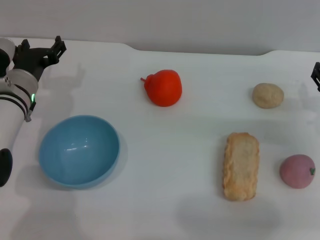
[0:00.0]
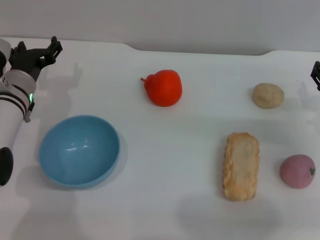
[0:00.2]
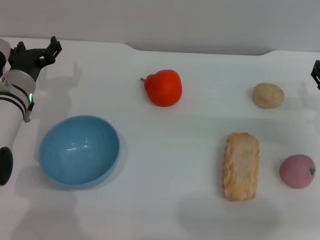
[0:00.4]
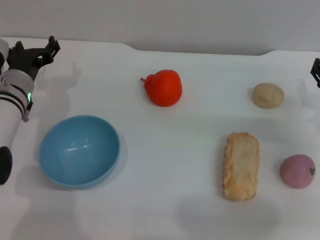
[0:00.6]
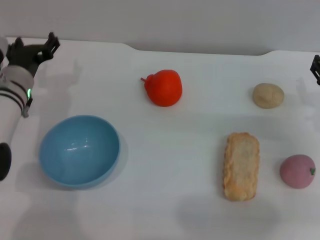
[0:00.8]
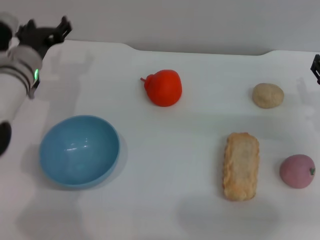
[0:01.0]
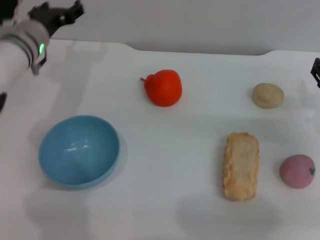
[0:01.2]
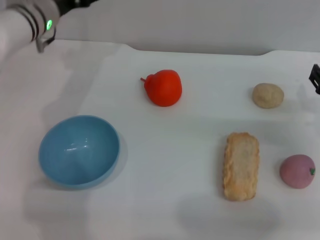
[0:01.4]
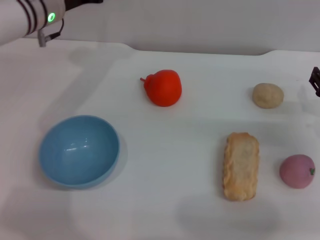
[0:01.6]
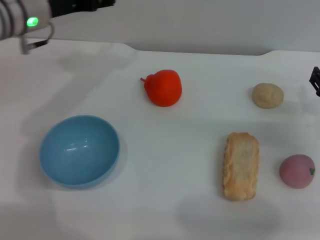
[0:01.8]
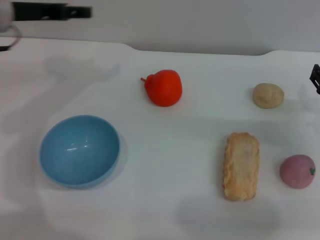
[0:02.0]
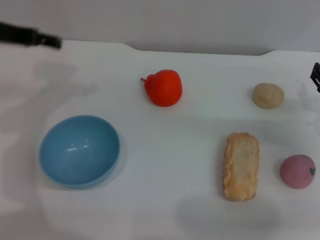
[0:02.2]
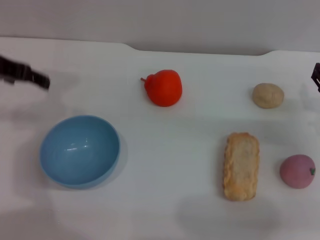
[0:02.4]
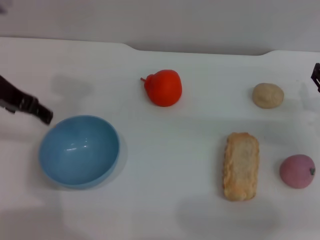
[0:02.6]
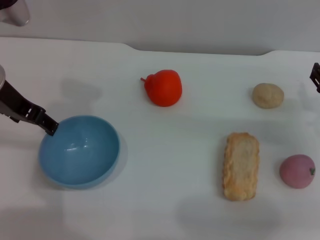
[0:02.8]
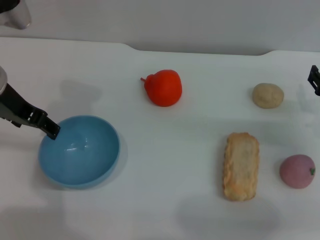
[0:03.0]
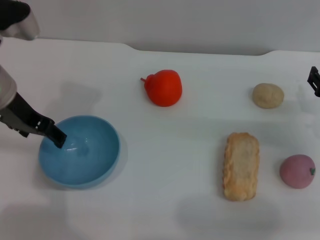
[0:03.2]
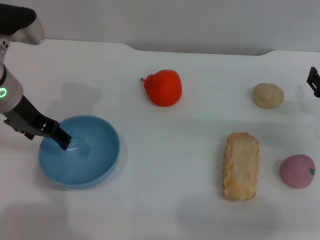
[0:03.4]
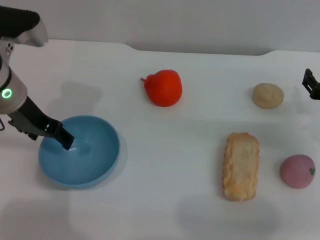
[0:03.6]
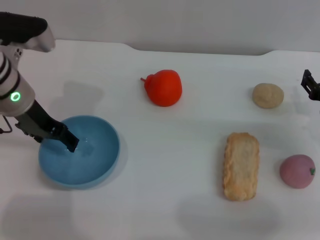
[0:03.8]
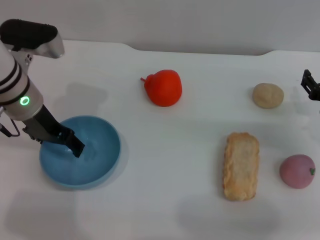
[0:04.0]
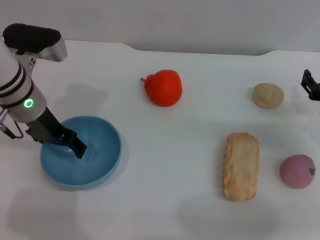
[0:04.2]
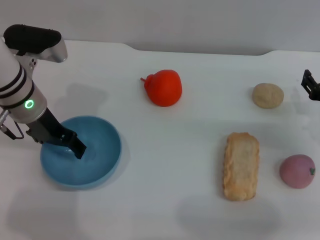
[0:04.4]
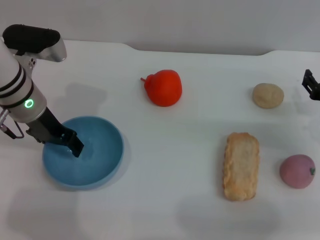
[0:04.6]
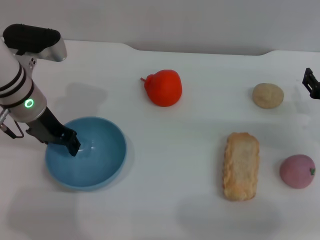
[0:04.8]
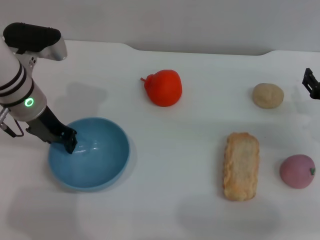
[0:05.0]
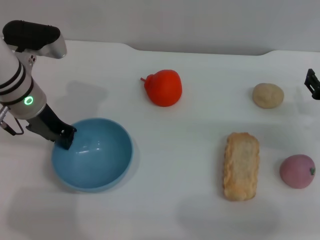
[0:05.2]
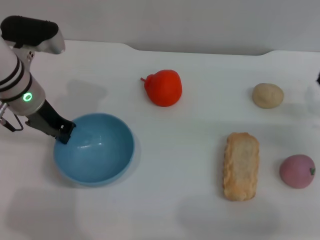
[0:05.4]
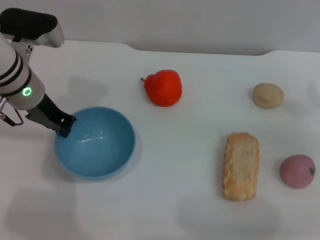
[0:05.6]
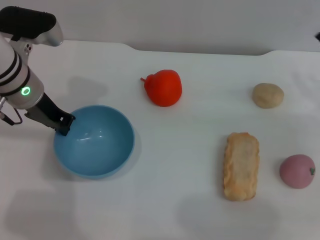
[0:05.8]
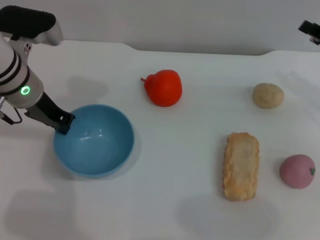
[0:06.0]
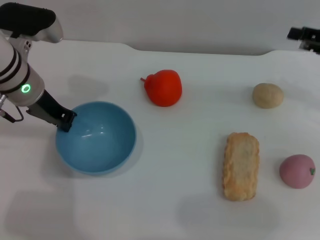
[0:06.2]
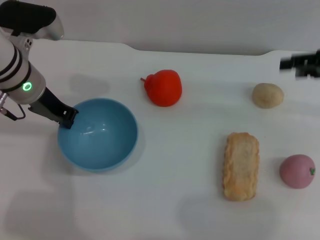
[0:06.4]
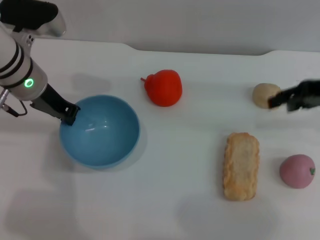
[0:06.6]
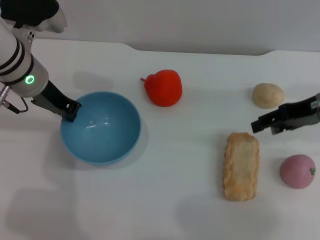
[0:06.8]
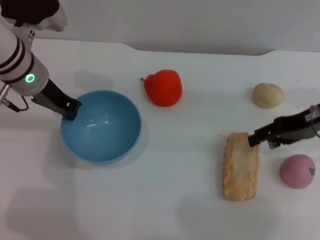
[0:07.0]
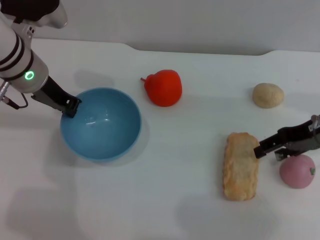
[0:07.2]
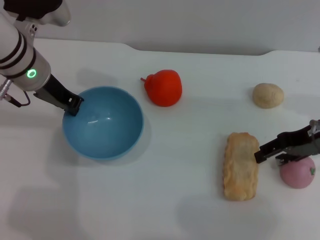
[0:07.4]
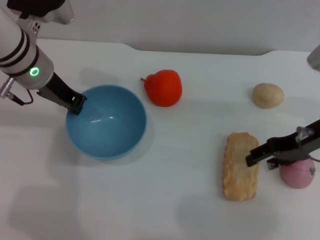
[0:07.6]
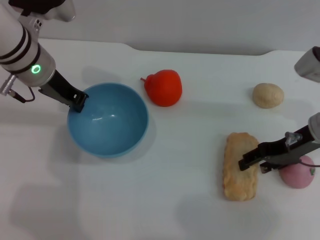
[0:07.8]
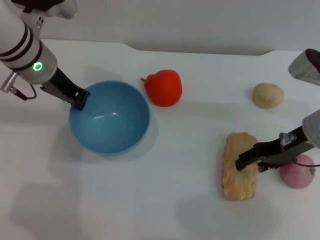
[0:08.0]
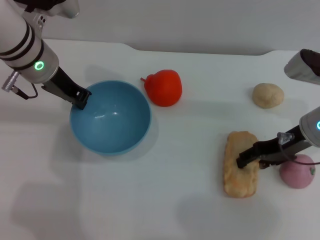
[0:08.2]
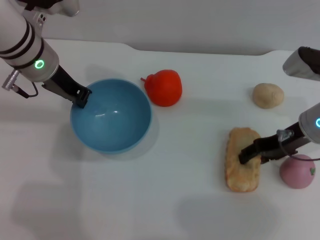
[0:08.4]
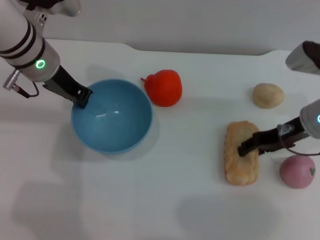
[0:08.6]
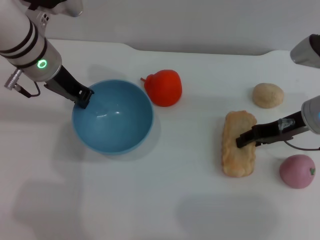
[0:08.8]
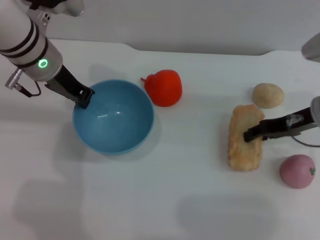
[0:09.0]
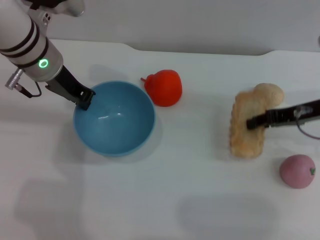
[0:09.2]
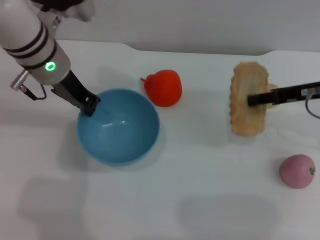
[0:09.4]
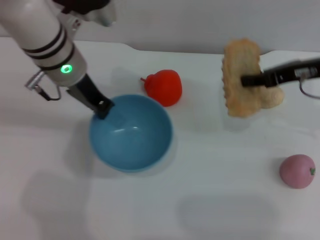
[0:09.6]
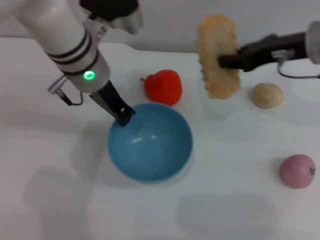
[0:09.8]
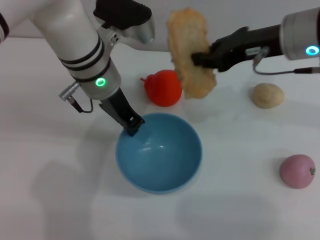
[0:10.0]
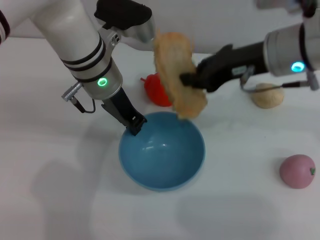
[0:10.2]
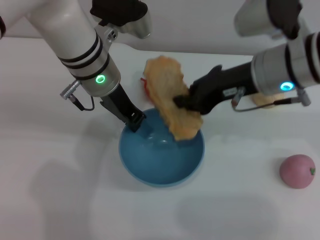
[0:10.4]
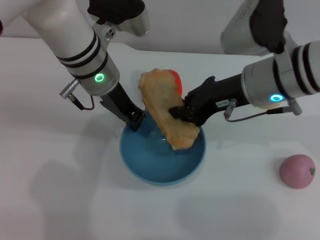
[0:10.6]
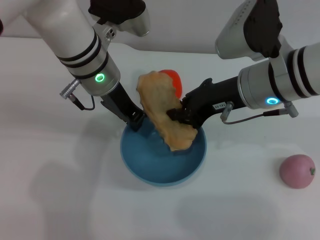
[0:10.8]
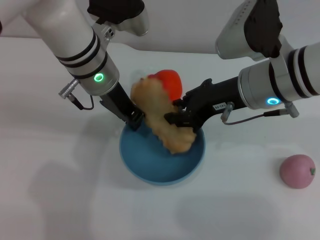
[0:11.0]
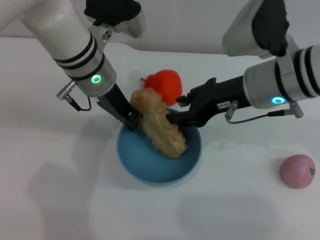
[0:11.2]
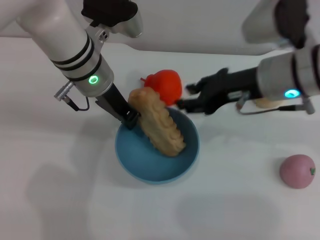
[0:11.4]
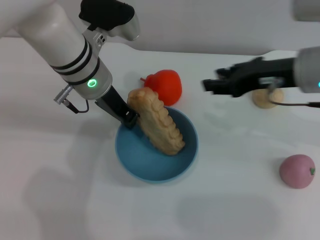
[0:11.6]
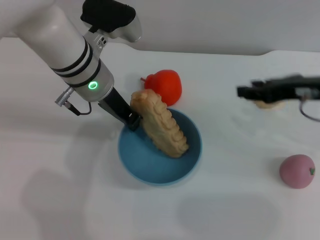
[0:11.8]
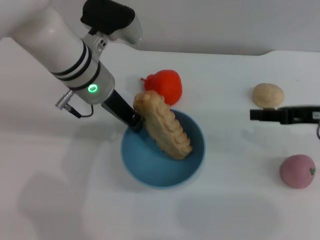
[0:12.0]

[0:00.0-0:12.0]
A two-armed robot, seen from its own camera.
Task of the whole recording: put the bread into the blue bowl and pour it out repeatedly.
Step, 0:00.0 to 0:07.4: Pick up the bowl with the left gripper.
Step, 0:07.6 to 0:09.2: Pick up the bread with the right gripper.
Step, 0:09.4 to 0:11.4: Place the bread into the bowl.
0:00.0 to 0:01.6: The left gripper is displaced upward and forward by roughly 15 cm.
0:01.6 to 0:03.0: The left gripper is displaced backward by about 10 cm.
0:03.0 to 0:04.4: The left gripper travels downward by roughly 10 cm.
0:04.4 to 0:06.0: The left gripper closes. The right gripper goes approximately 10 cm upward.
0:06.0 to 0:07.6: The right gripper shifts roughly 10 cm to the left.
0:07.6 to 0:09.0: The right gripper closes.
0:09.0 to 0:10.4: The left gripper travels to the right by some 10 cm; the right gripper moves to the left and upward, roughly 15 cm, and closes.
0:10.4 to 0:12.0: The right gripper moves to the right, roughly 15 cm, and opens its fingers.

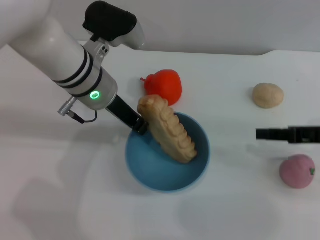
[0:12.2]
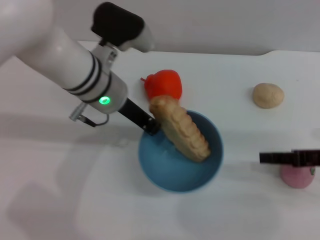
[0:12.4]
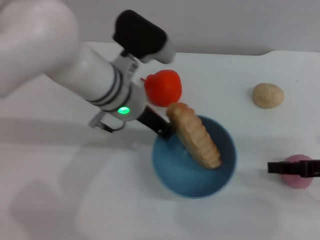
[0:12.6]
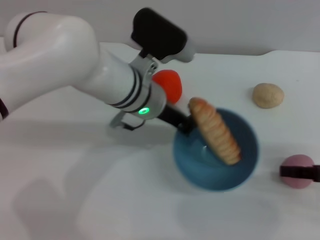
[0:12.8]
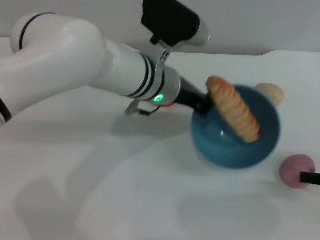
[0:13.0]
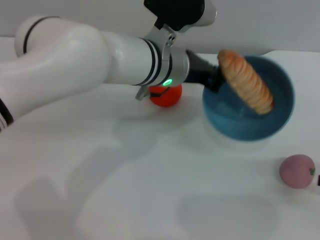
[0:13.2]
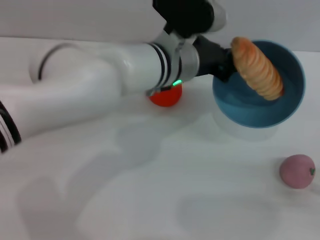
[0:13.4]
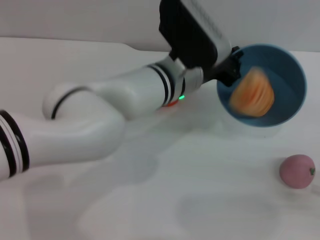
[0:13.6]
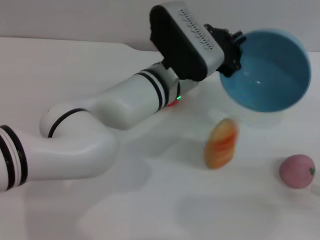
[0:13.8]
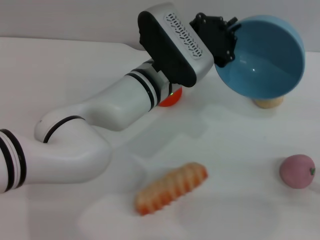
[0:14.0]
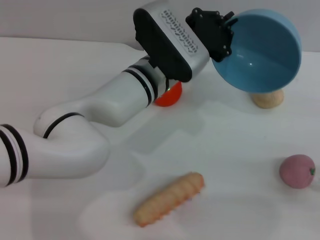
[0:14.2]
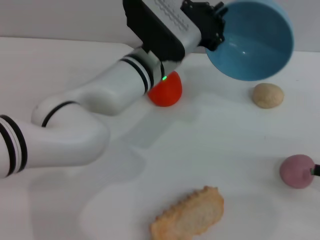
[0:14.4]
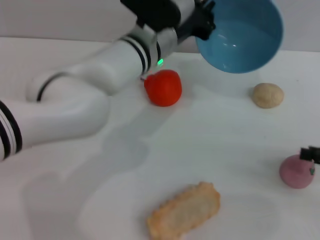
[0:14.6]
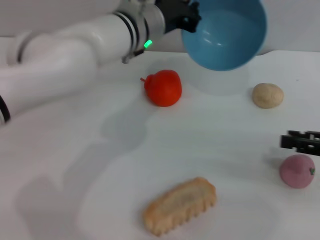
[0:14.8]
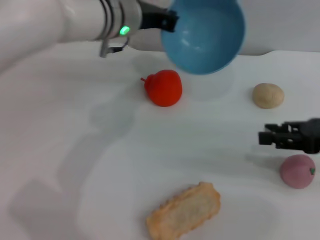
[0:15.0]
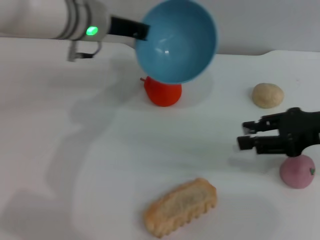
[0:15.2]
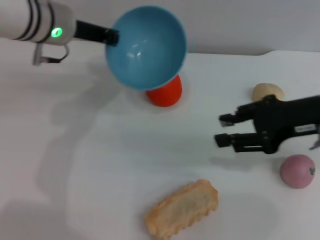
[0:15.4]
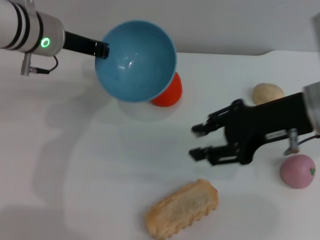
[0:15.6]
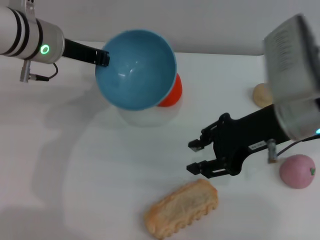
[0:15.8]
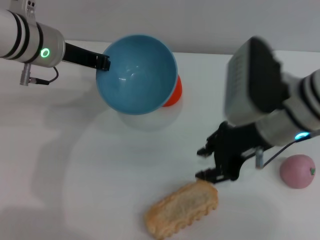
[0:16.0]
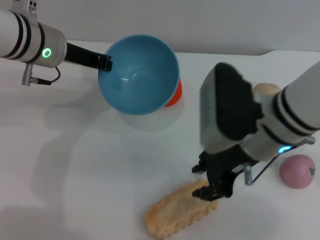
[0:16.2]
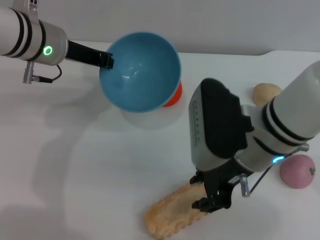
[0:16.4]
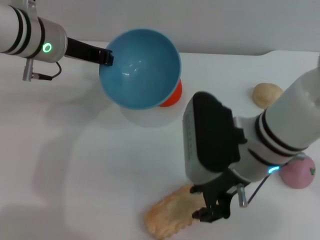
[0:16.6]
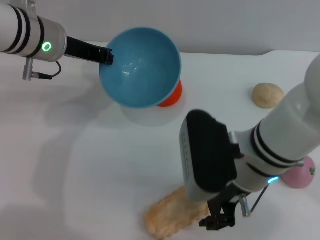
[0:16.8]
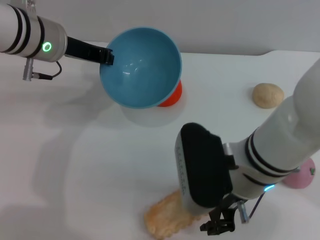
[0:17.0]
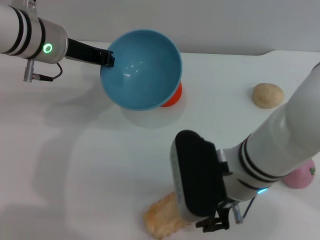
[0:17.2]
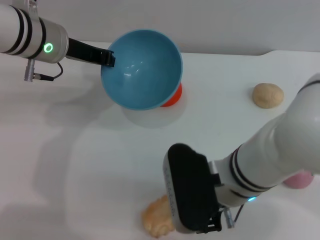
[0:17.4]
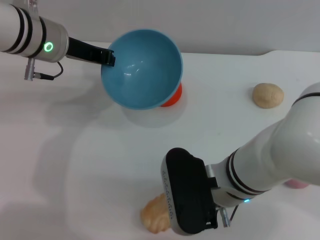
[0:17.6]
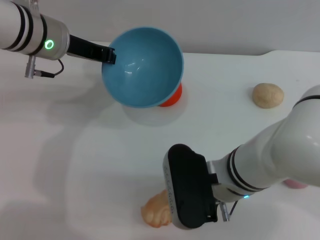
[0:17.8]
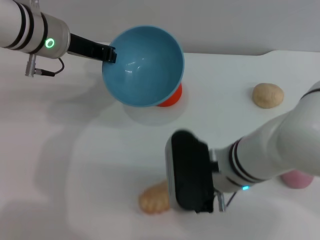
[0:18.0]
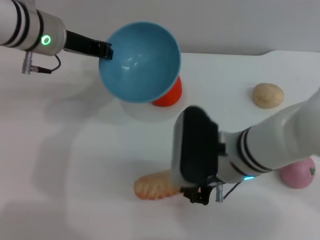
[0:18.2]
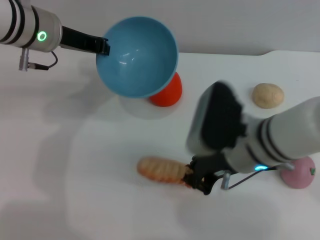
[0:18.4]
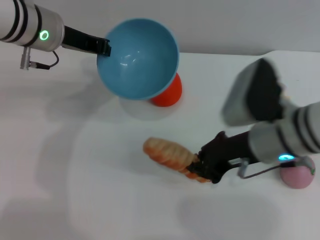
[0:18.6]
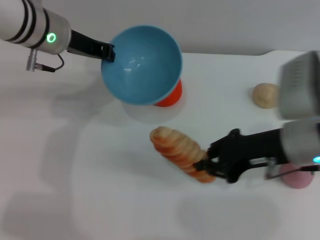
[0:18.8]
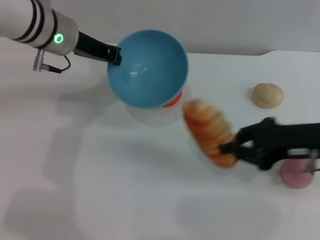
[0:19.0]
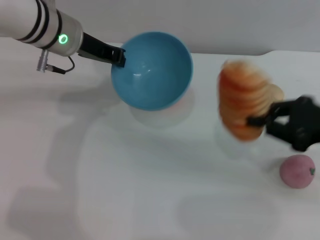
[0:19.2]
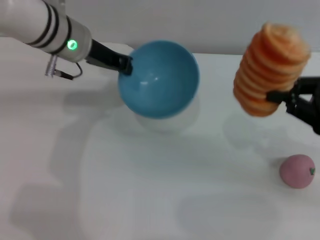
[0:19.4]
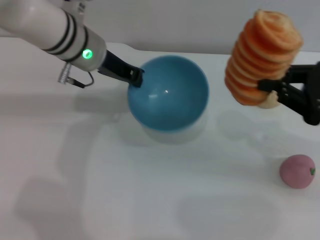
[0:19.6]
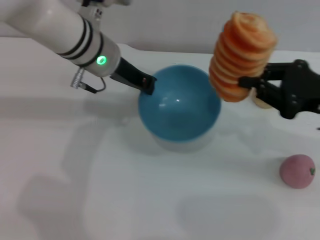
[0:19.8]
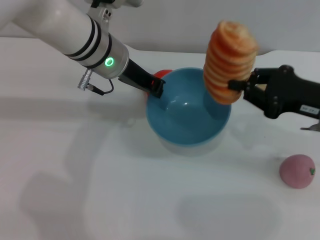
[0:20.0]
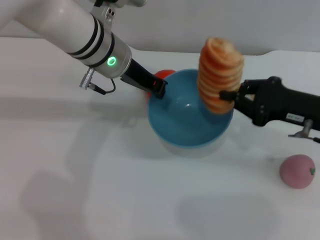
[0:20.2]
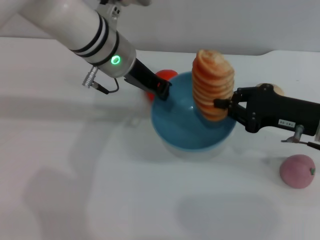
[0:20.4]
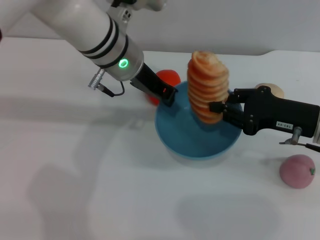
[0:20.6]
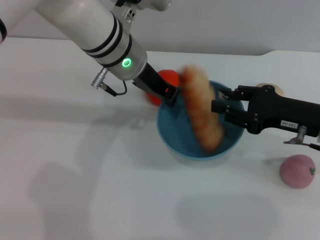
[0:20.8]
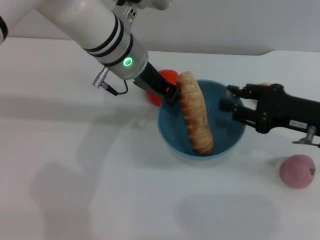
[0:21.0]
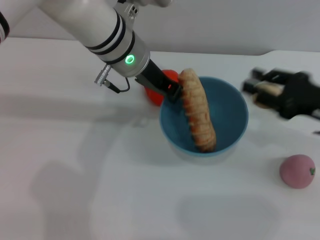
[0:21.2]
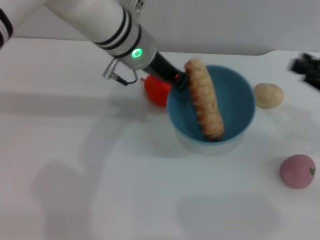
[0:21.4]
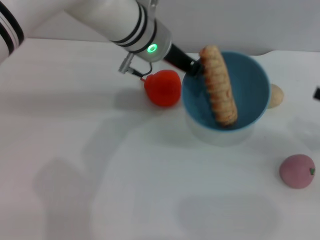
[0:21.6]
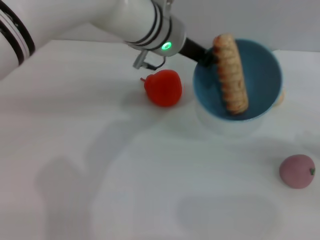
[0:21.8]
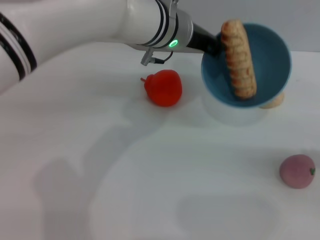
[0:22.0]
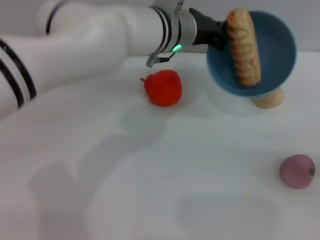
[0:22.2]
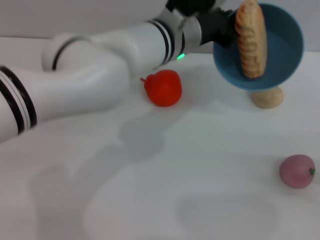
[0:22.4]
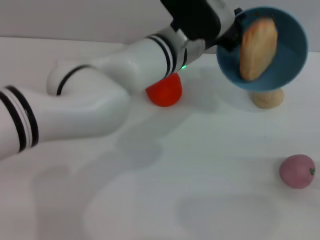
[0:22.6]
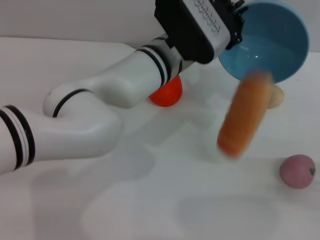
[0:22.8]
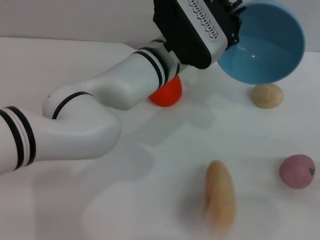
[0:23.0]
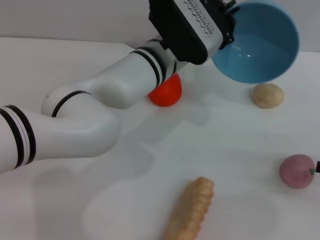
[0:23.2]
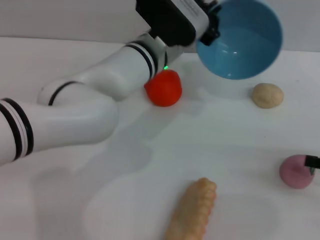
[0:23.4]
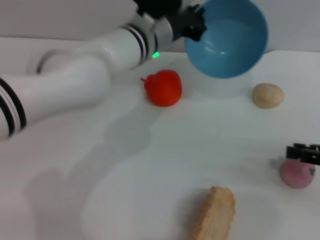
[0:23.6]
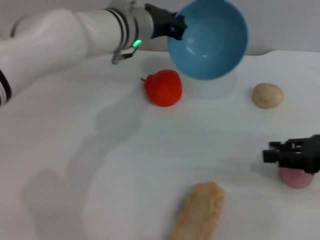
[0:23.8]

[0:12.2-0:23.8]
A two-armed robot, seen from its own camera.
Task of the whole recording: put the bread into the blue bowl and pour it out repeatedly.
Step, 0:12.2 to 0:14.2: Pour the bread out of the bowl.
Step, 0:14.4 to 0:18.6: Pick up the bread with the right gripper.
Step, 0:18.8 to 0:21.0: Place the bread into the bowl.
Step, 0:21.2 to 0:23.0: Pour the bread out of the bowl.
0:12.2 to 0:13.6: The right gripper goes some 15 cm to the right and backward. Meanwhile the left gripper moves to the right, some 10 cm.
0:13.6 to 0:15.0: The grippers both shift to the left, forward and upward by approximately 15 cm.
0:15.0 to 0:16.6: The left gripper moves to the left, some 10 cm. Meanwhile the right gripper heads to the left, covering some 20 cm.
0:16.6 to 0:18.0: The right gripper travels downward by some 5 cm.
0:18.0 to 0:19.4: The right gripper travels to the right by some 20 cm.
0:19.4 to 0:21.0: The left gripper travels to the right by some 10 cm. Meanwhile the right gripper moves downward, roughly 5 cm, and opens its fingers.
0:21.0 to 0:22.4: The right gripper heads to the right and backward, covering roughly 15 cm; the left gripper heads to the right, covering approximately 5 cm.
0:22.4 to 0:23.8: The right gripper moves to the left and forward, about 10 cm, while the left gripper is displaced to the left by about 5 cm.
